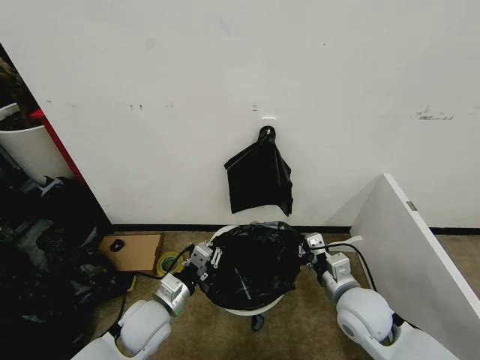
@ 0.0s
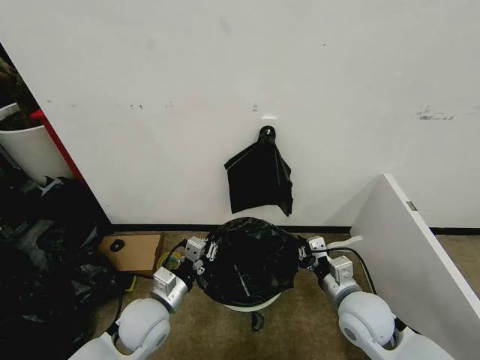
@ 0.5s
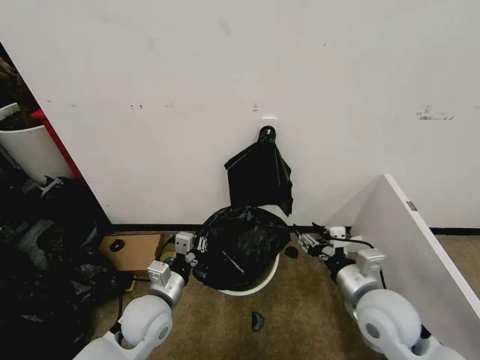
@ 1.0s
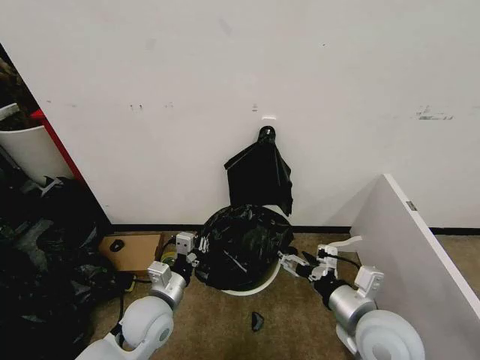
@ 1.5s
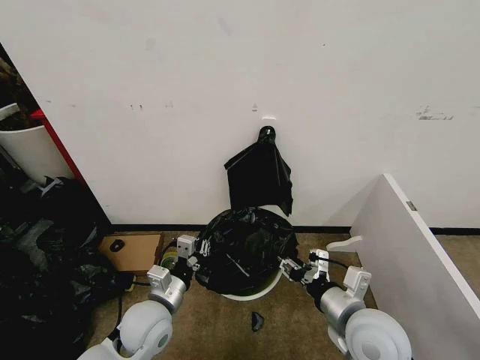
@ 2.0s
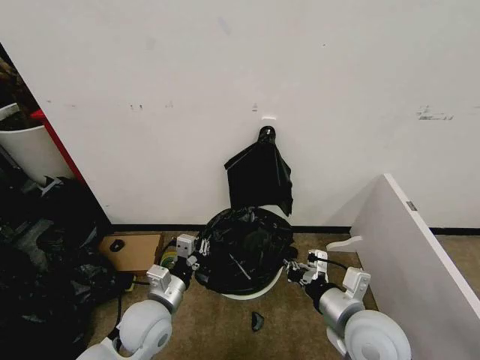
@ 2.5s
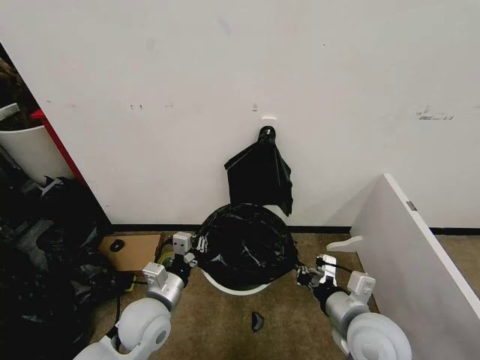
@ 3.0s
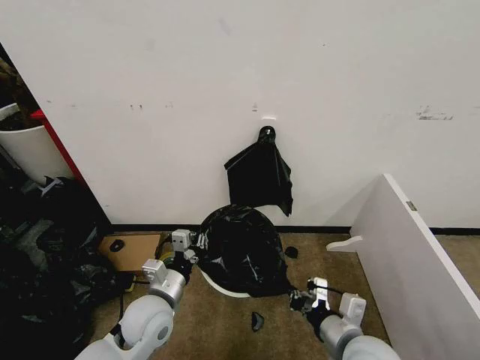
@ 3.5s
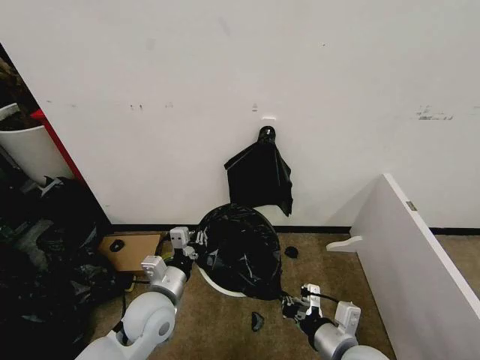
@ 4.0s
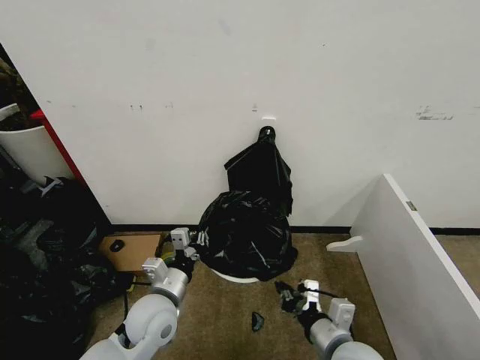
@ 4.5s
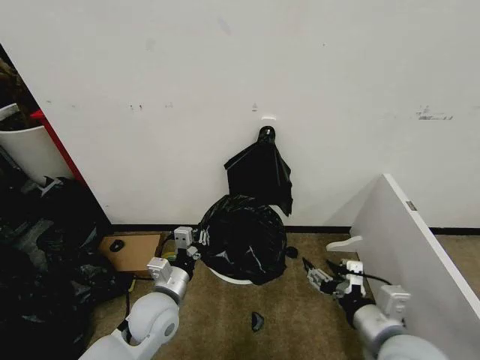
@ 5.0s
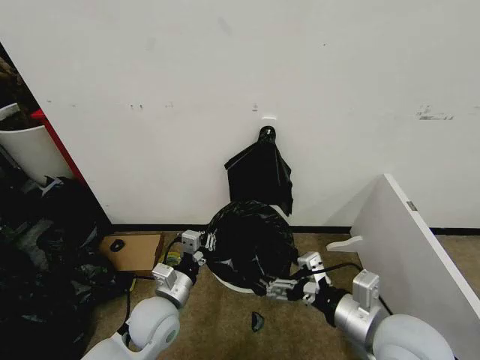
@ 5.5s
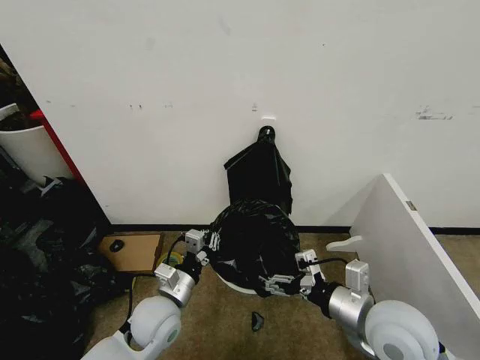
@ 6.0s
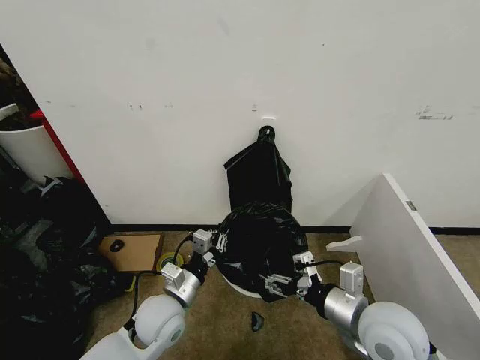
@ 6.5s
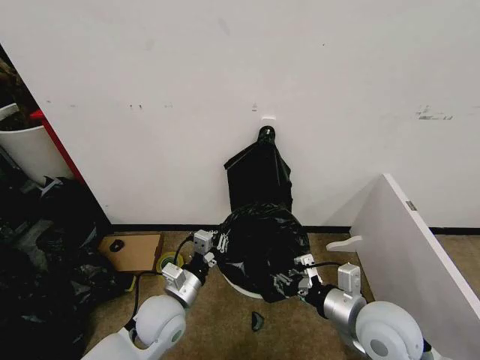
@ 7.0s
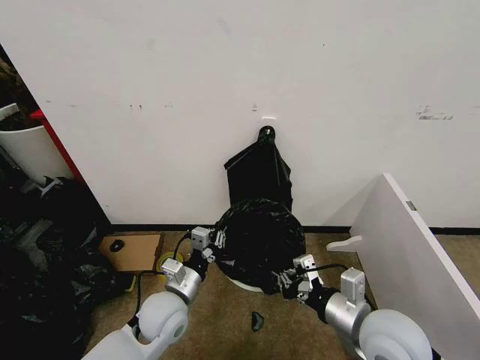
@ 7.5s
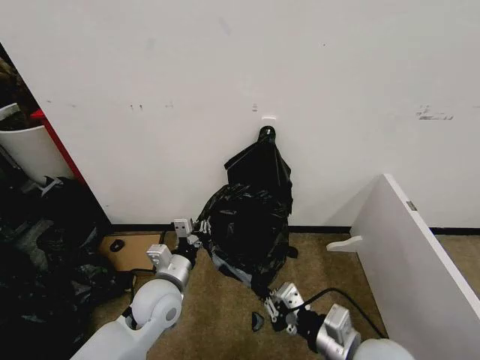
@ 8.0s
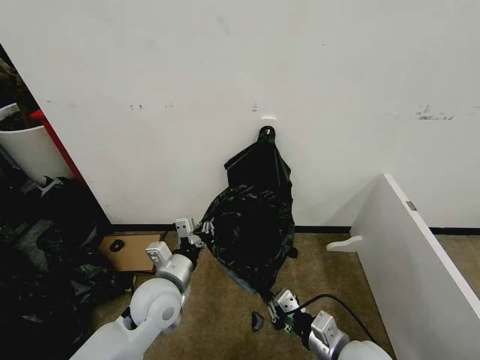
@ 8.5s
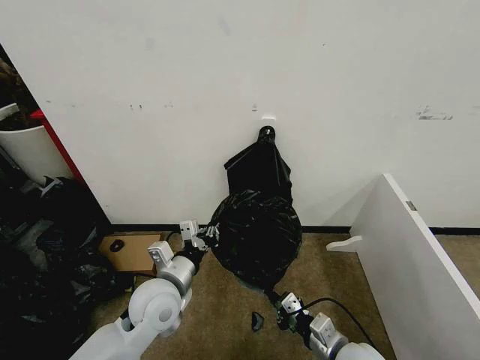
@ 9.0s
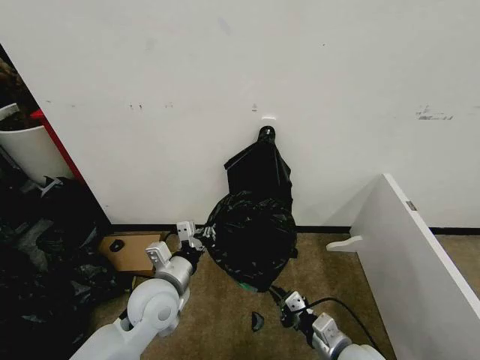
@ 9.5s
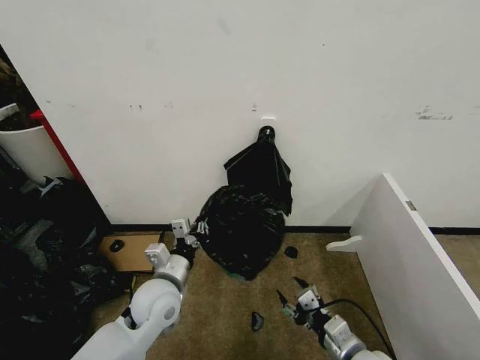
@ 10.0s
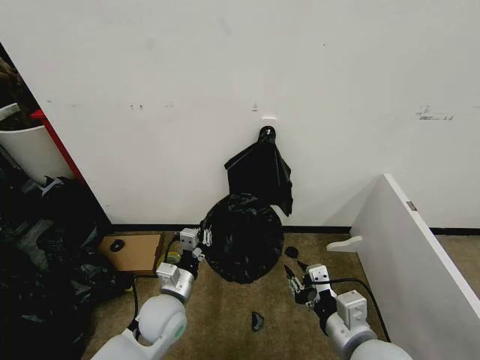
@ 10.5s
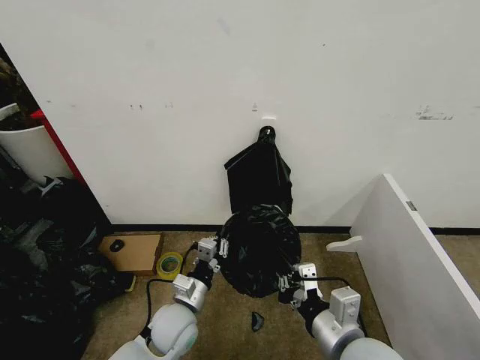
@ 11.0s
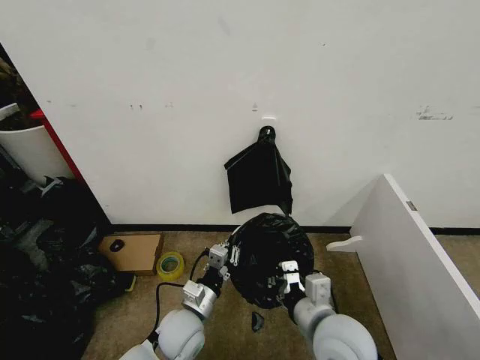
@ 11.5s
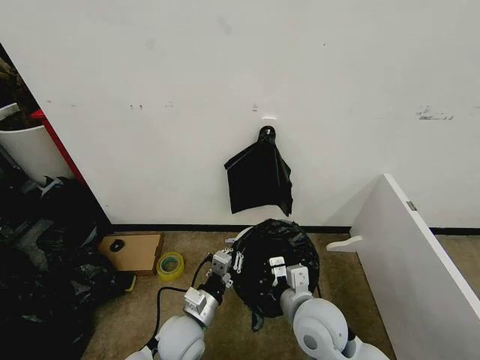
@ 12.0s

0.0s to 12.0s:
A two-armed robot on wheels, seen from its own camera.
Task of the whole recording: Place the garbage bag over the trash bin.
0.0s to 2.0s: The right gripper moves backward, roughly 5 cm, and opens up.
2.0s to 4.0s: The right gripper moves downward, some 5 cm, and closes.
4.0s to 6.0s: The right gripper goes roughly 10 cm upward, and opens.
6.0s to 8.0s: The right gripper shifts by approximately 5 cm, and closes up.
8.0s to 10.0s: The right gripper heads downward, covering about 10 cm, and opens.
10.0s to 12.0s: The right gripper is displaced to the left, forward and upward by approximately 15 cm, and closes its fingers. Meanwhile the left gripper shifts approximately 5 cm downward.

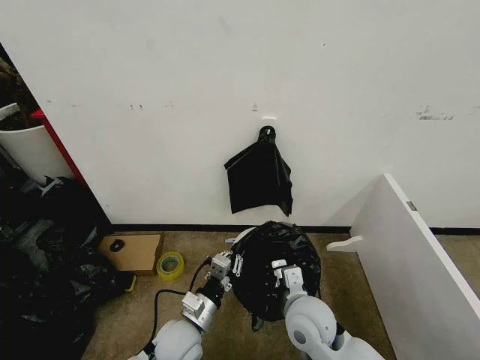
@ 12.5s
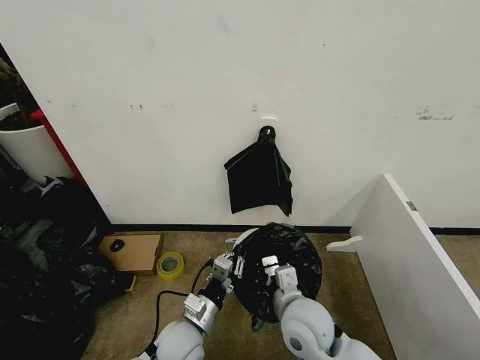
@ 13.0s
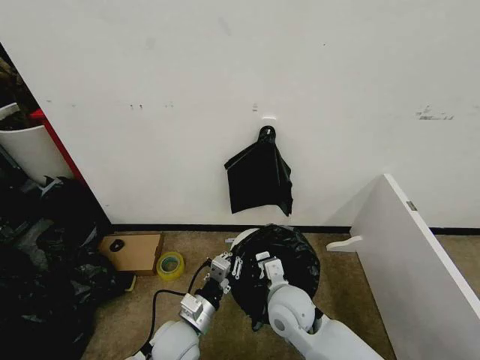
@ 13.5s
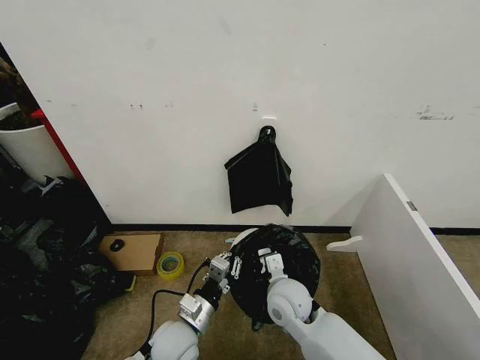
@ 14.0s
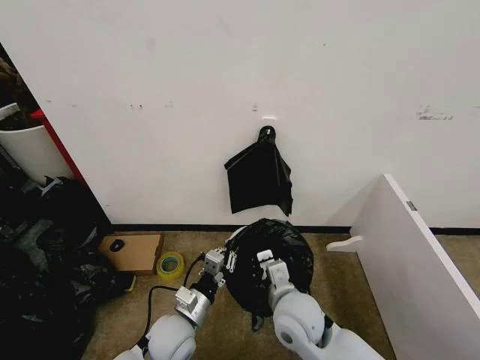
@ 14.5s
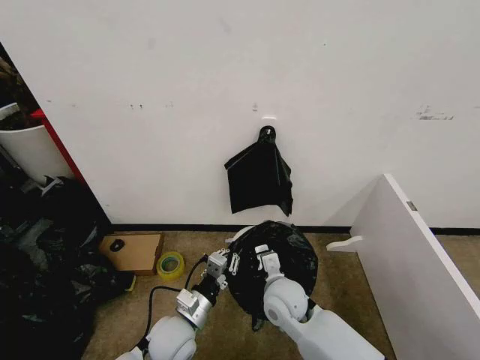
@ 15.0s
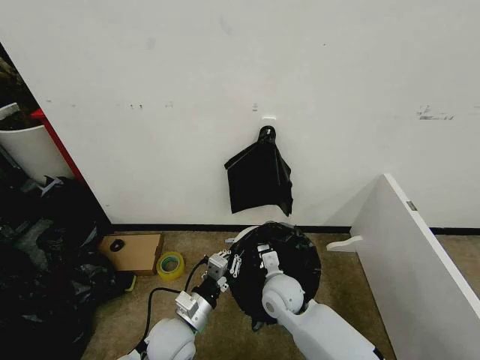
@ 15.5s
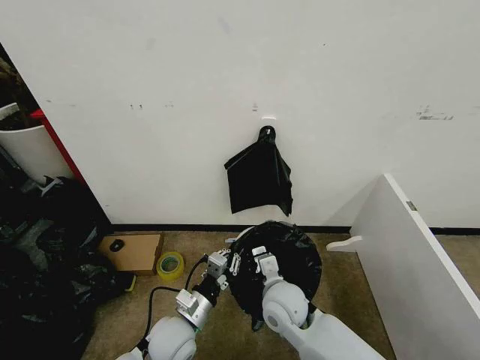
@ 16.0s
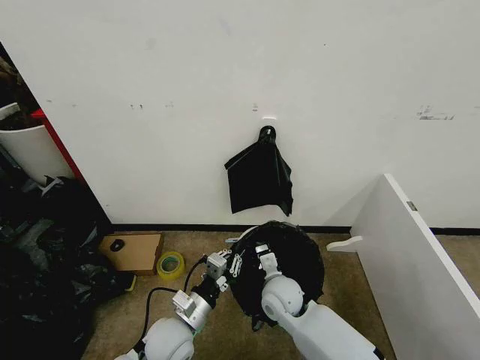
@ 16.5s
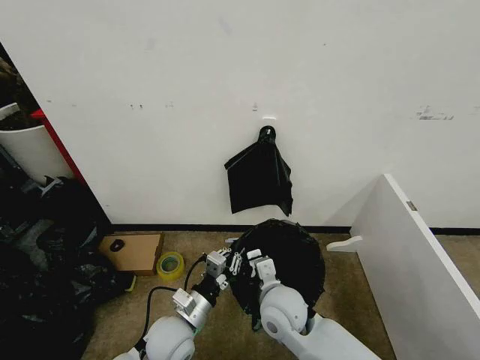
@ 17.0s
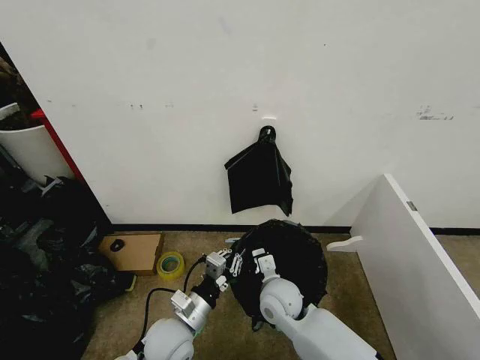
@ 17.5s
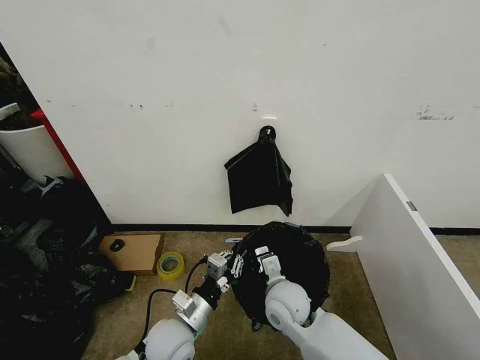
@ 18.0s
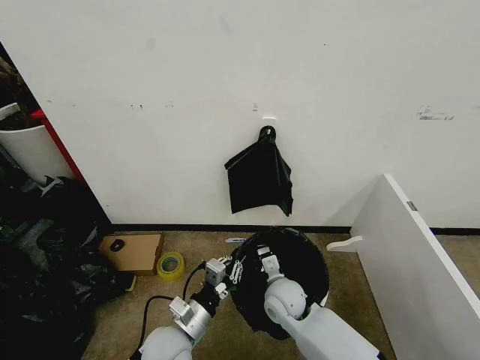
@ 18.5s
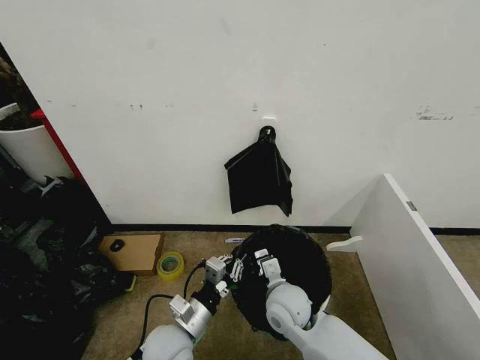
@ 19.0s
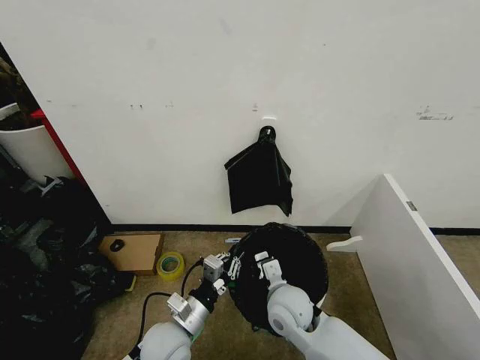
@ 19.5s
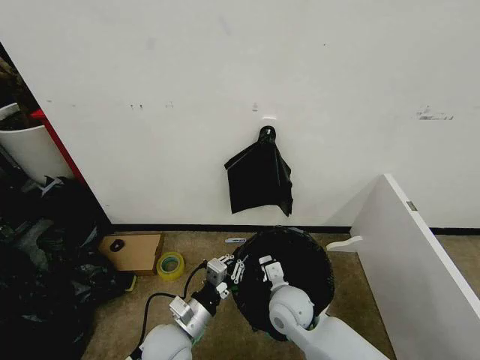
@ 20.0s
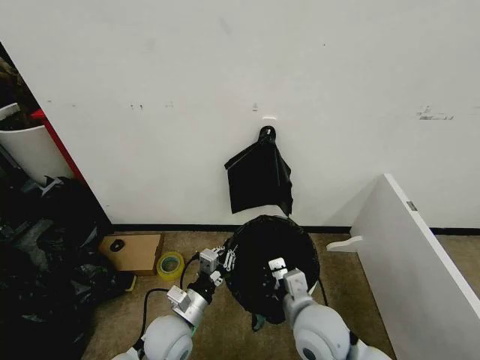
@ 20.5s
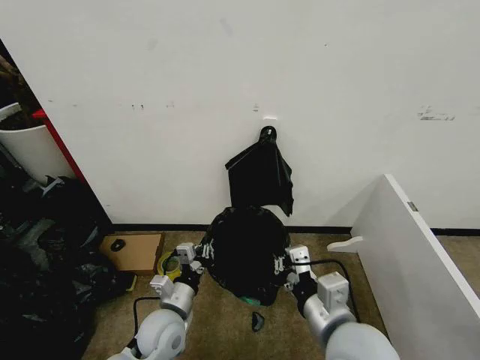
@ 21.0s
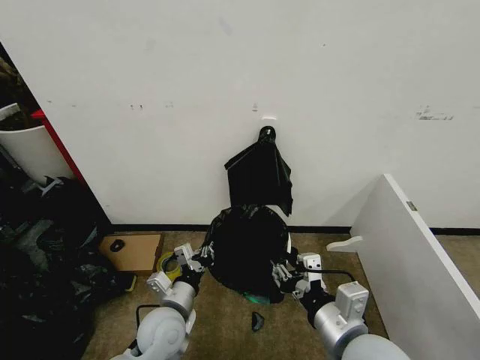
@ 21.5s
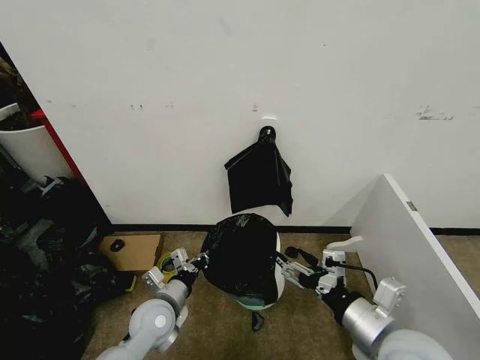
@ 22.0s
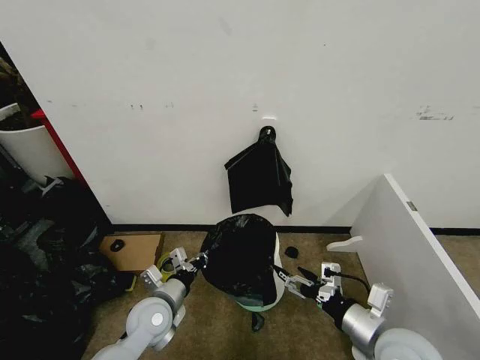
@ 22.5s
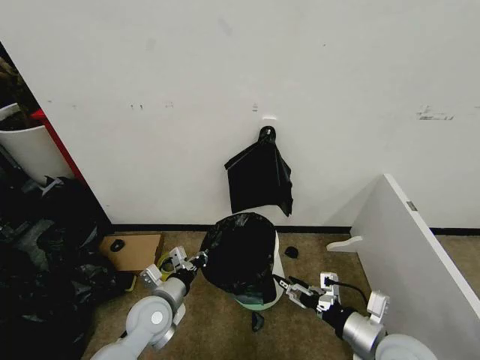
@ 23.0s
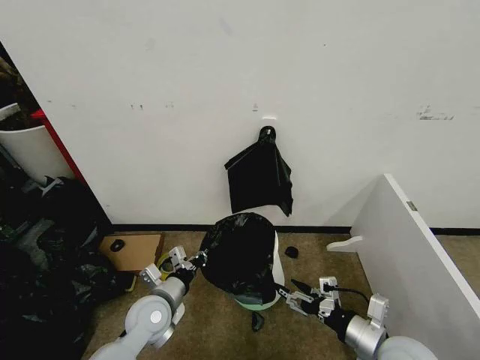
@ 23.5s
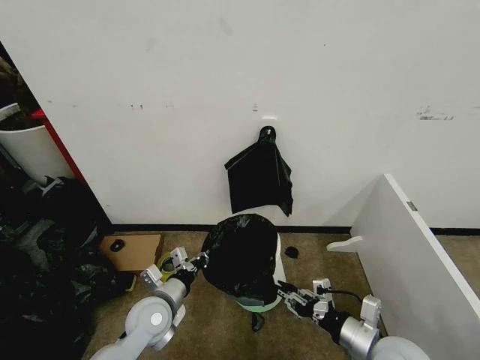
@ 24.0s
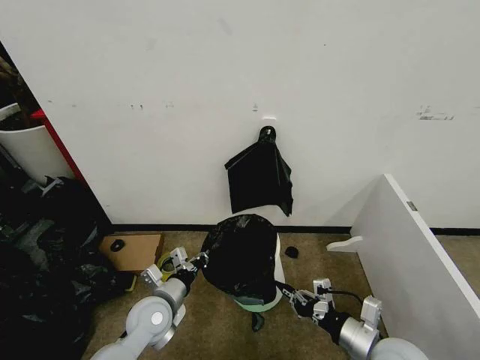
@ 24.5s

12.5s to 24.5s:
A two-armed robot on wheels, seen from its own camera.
Task of the whole recording: Place the garbage bag over the trash bin.
14.5s to 16.5s: The right gripper moves up and down over approximately 10 cm, changing direction 2 times.
18.5s to 20.5s: The right gripper shifts some 10 cm upward and backward.
20.5s to 22.5s: The left gripper shifts by approximately 5 cm. The right gripper goes about 15 cm to the right, and opens up.
22.5s to 24.5s: The right gripper shifts some 5 cm downward, and closes.

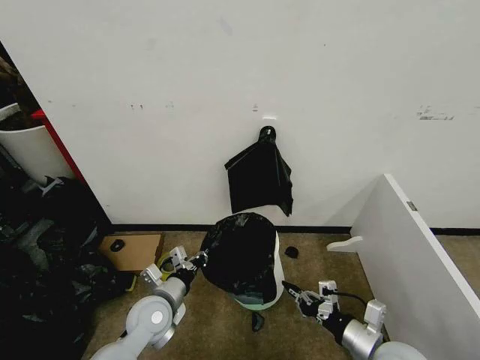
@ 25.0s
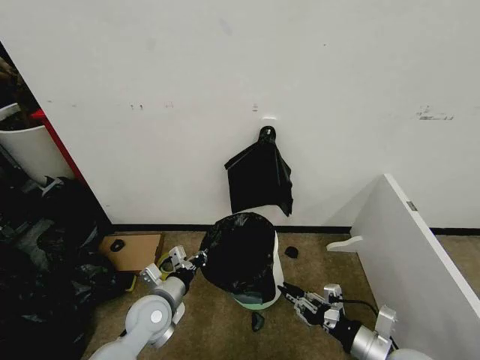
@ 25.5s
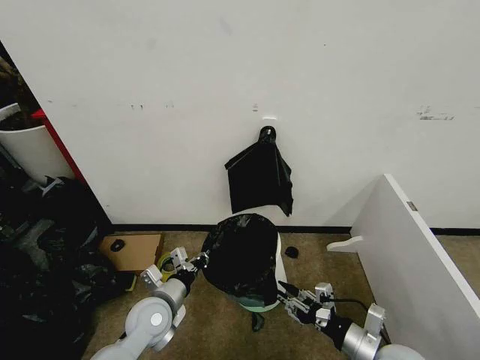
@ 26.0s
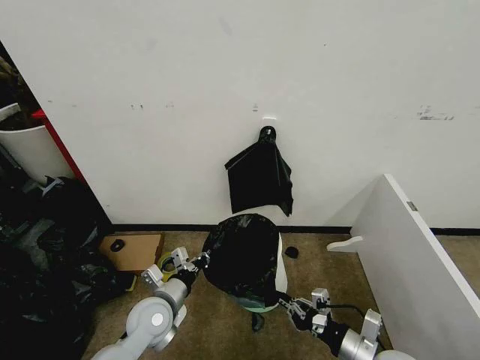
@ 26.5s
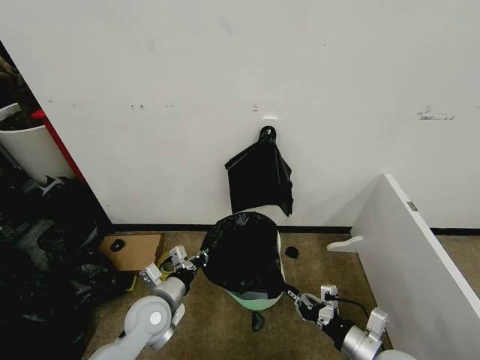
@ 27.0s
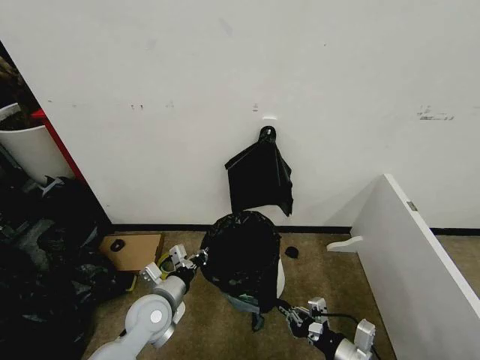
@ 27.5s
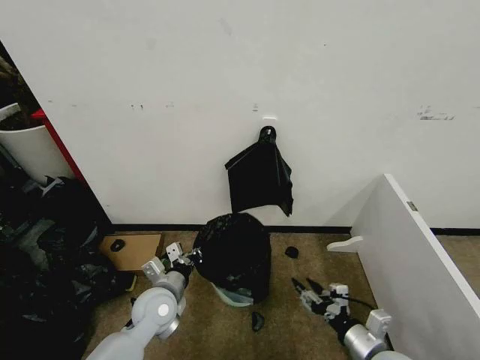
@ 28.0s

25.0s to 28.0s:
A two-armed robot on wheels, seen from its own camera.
Task of the whole recording: Place the garbage bag over the trash bin.
25.0s to 26.5s: The right gripper opens, then closes again.
26.5s to 28.0s: The right gripper opens its fingers.
